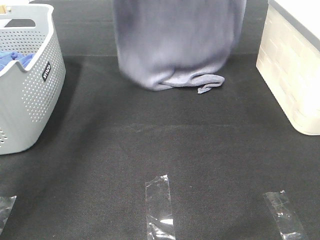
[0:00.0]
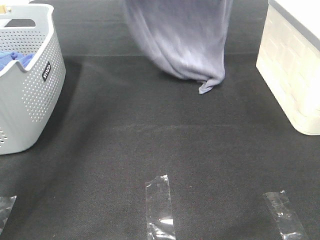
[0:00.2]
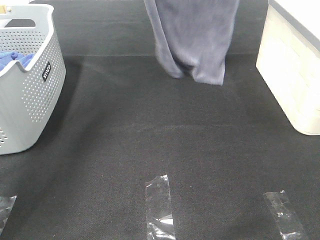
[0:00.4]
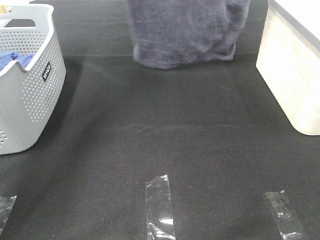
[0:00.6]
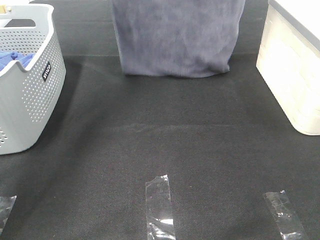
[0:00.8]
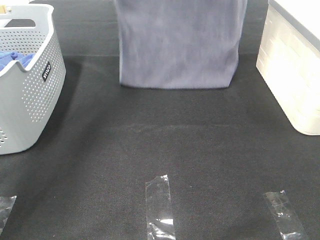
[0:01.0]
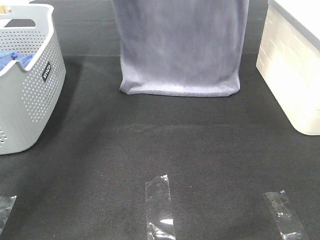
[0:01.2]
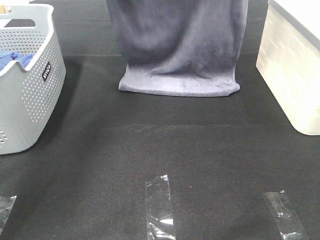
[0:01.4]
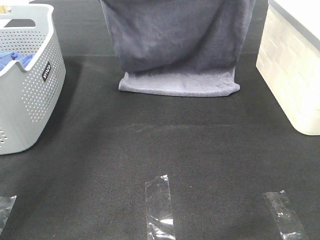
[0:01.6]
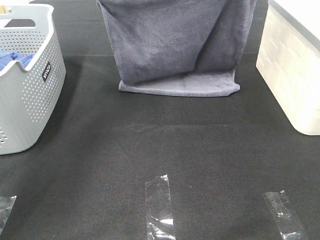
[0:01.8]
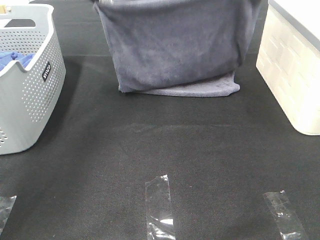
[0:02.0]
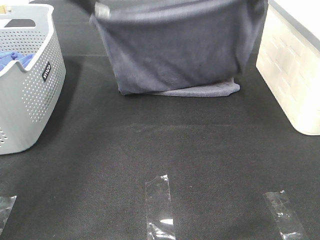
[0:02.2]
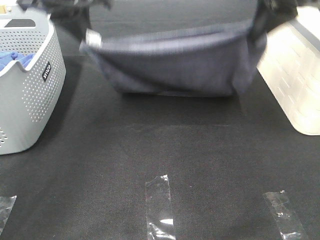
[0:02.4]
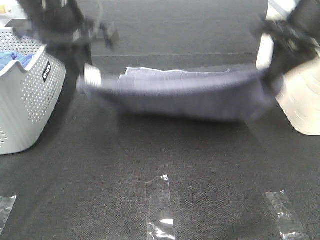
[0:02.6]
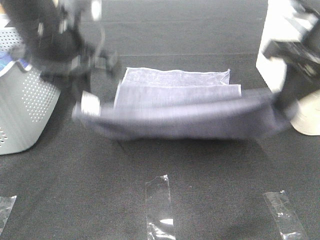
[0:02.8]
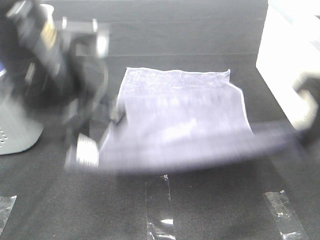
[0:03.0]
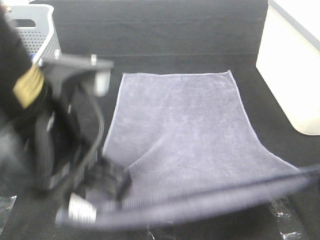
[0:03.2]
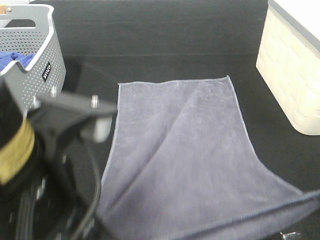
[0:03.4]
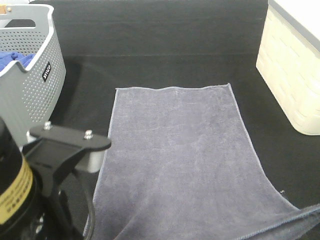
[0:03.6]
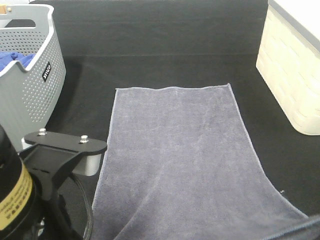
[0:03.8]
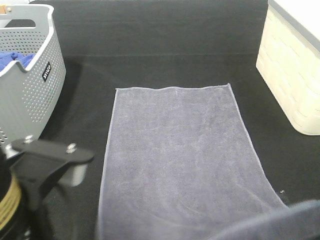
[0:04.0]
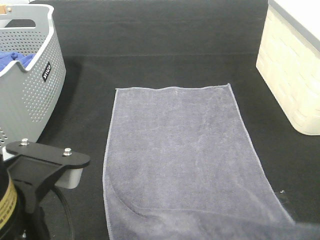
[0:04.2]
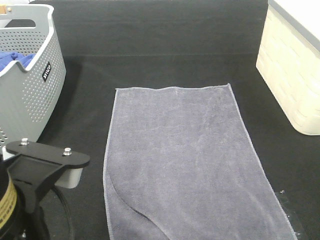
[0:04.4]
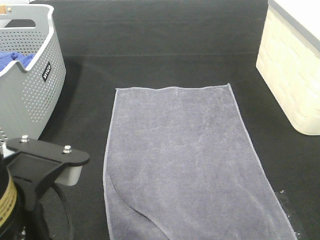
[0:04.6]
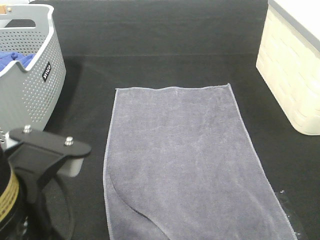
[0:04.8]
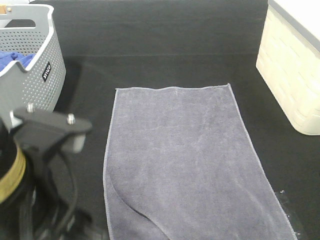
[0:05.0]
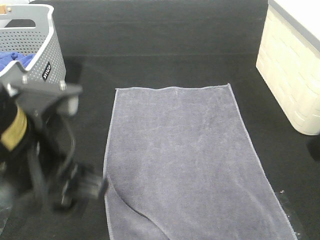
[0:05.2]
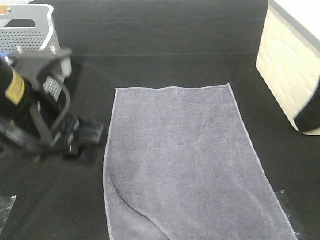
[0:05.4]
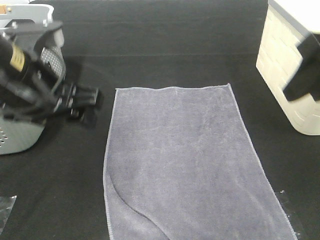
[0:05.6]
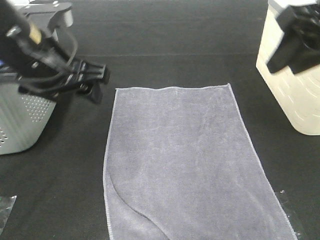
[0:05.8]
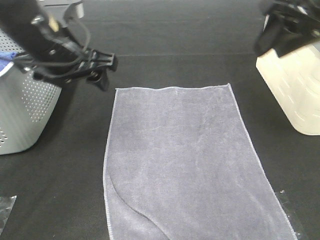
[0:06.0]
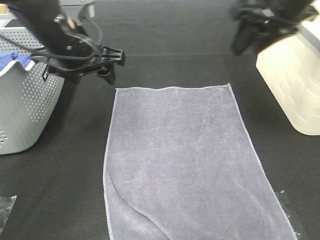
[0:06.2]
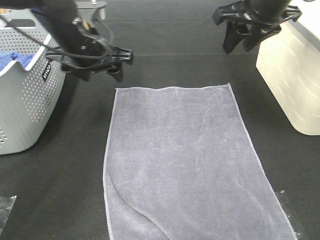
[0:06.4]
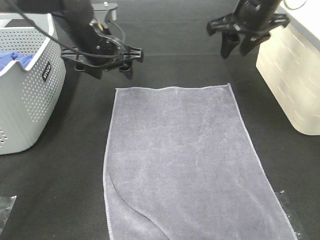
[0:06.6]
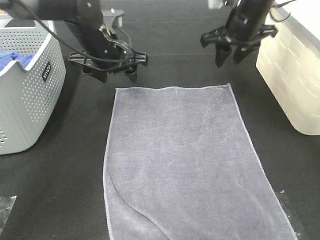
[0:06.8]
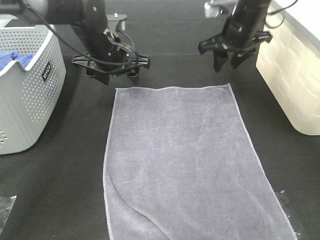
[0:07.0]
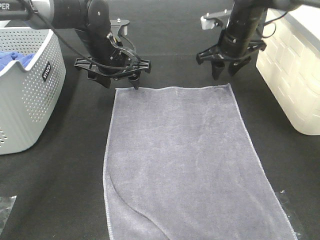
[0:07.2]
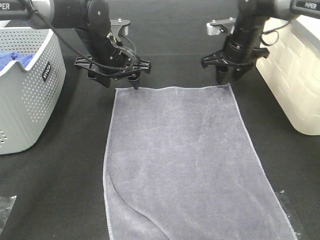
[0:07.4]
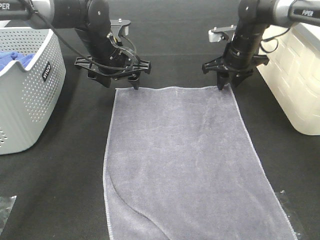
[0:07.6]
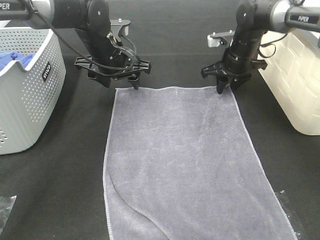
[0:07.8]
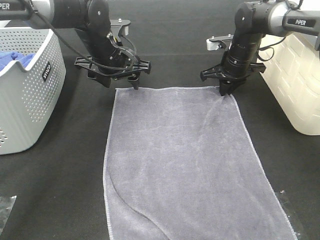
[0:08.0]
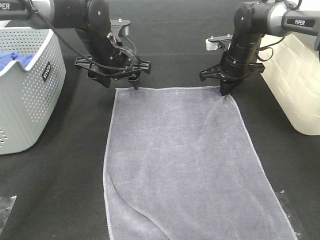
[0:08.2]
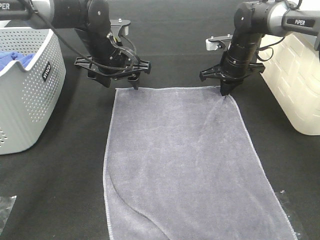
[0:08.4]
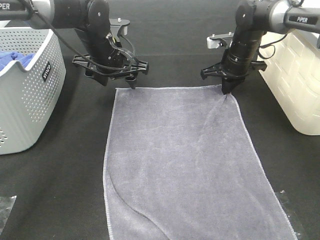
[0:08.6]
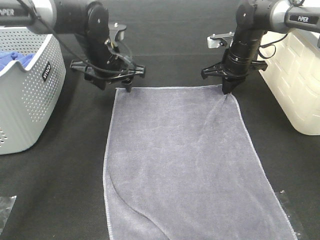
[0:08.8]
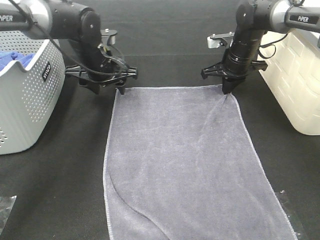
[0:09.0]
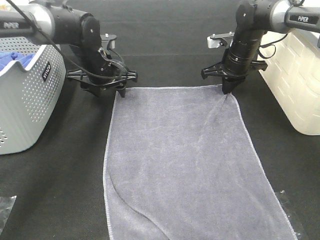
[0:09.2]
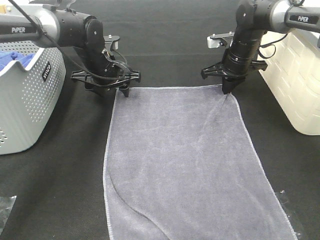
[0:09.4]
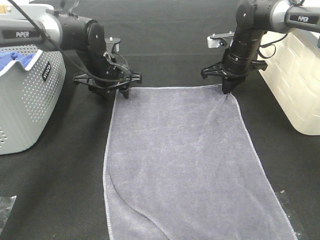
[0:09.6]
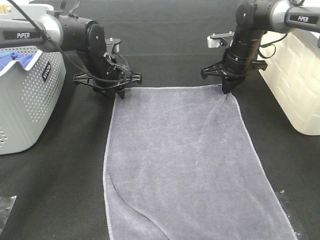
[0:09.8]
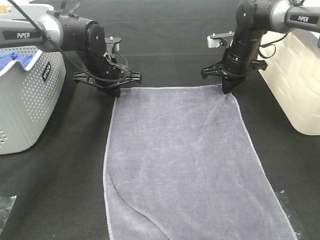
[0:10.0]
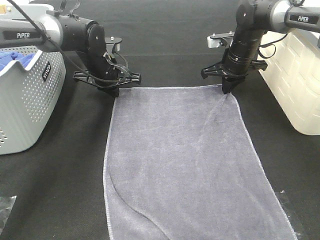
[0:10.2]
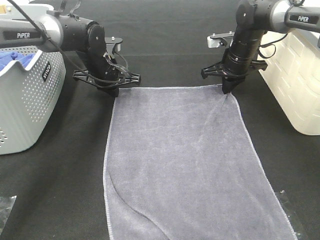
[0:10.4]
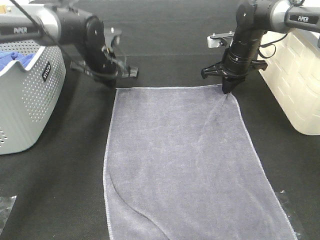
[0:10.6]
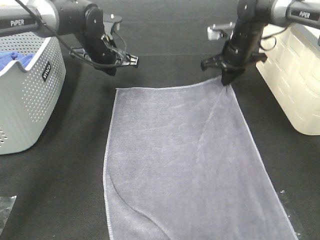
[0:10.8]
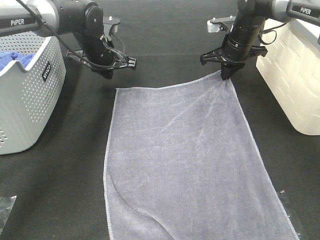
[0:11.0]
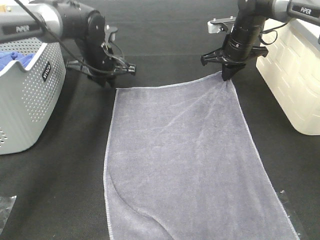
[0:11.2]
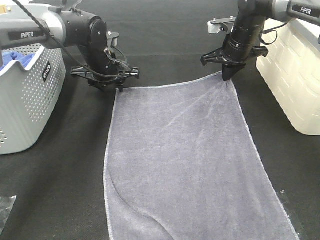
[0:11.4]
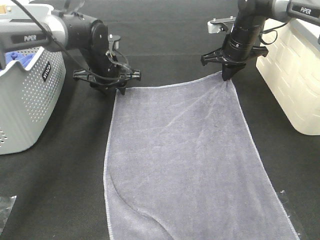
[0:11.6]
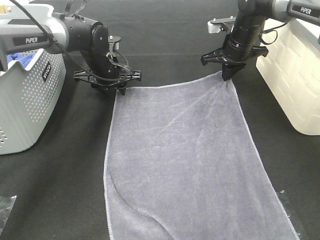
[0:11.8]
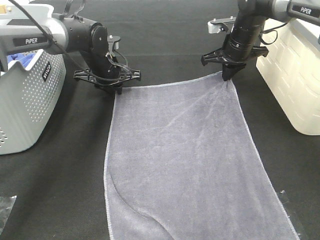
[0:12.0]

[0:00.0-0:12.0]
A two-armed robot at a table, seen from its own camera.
Task of the whole recording: Remove the towel and place it.
Step, 0:00.0 to 0:09.6: Left hand:adjust the gray towel.
Step, 0:00.0 to 0:09.6: Right hand:adjust the gray towel.
0:00.0 to 0:01.6: The left gripper moves about 10 cm upward and comes back. Meanwhile the right gripper reaches about 10 cm upward, then returns.
0:01.6 to 0:03.0: The right gripper heads backward and downward, covering approximately 25 cm; the left gripper moves backward, approximately 25 cm.
0:03.0 to 0:04.4: Both grippers move backward, approximately 10 cm. The right gripper opens its fingers, while the left gripper opens up.
0:04.4 to 0:06.0: Both grippers move forward, approximately 25 cm.
0:06.0 to 0:07.6: The right gripper is displaced downward and forward by roughly 25 cm. Meanwhile the left gripper heads forward and downward, covering about 15 cm.
0:07.6 to 0:09.0: The right gripper closes up.
0:09.0 to 0:10.4: The left gripper closes up.
0:10.4 to 0:12.0: The left gripper opens, then closes once more.

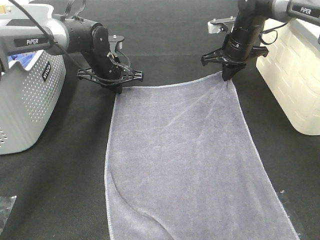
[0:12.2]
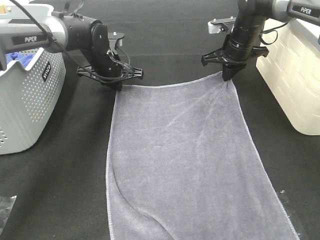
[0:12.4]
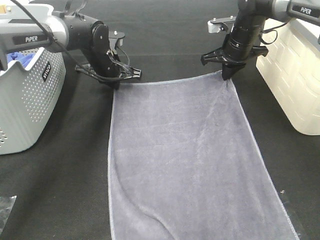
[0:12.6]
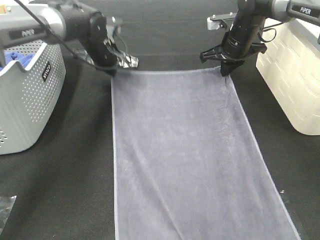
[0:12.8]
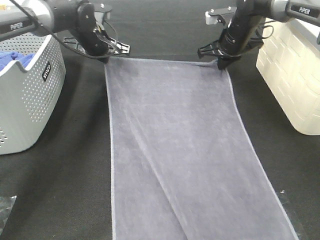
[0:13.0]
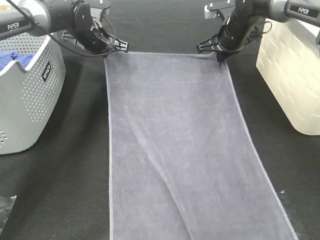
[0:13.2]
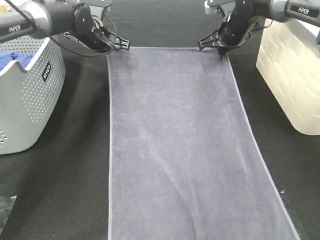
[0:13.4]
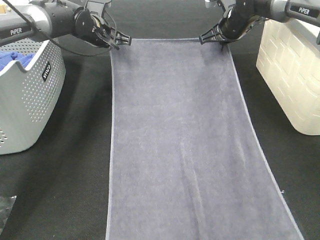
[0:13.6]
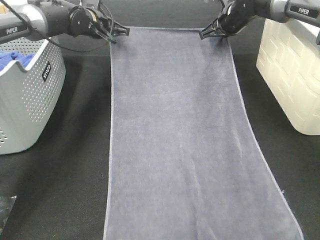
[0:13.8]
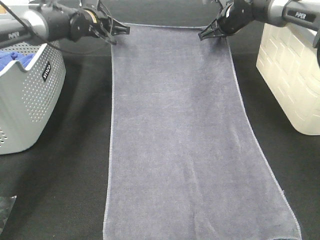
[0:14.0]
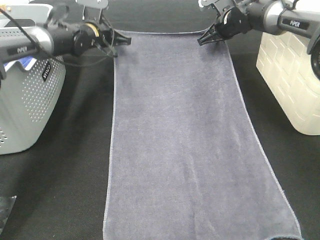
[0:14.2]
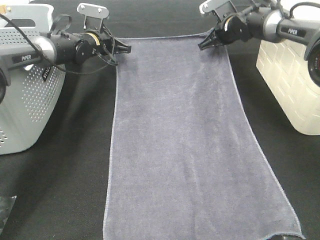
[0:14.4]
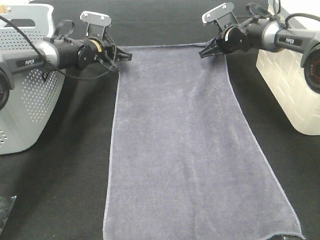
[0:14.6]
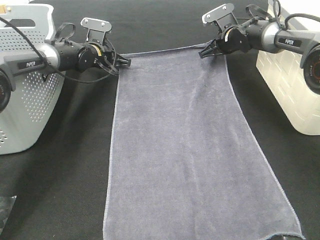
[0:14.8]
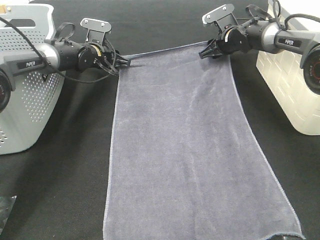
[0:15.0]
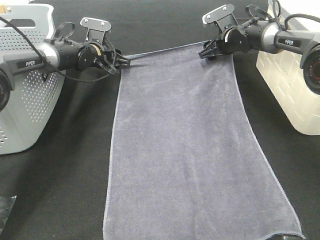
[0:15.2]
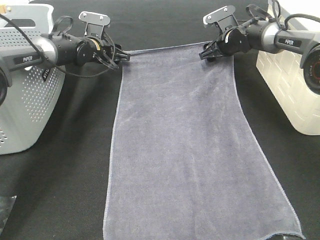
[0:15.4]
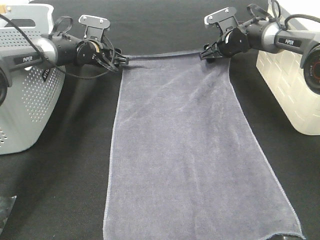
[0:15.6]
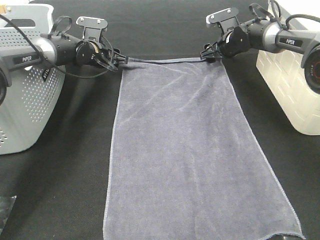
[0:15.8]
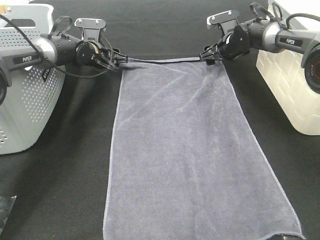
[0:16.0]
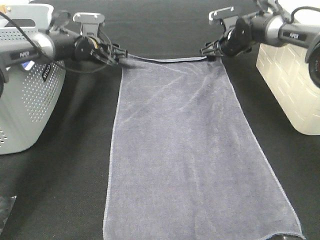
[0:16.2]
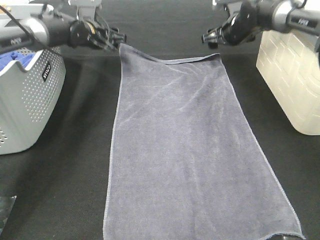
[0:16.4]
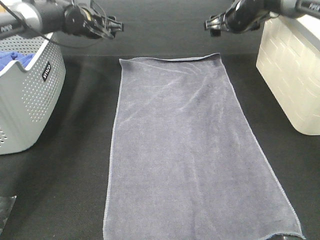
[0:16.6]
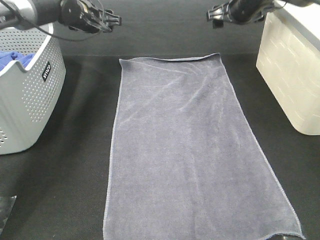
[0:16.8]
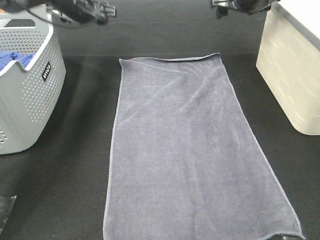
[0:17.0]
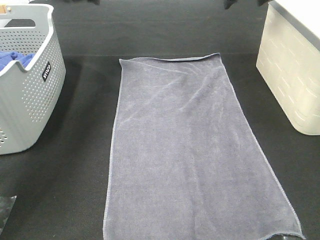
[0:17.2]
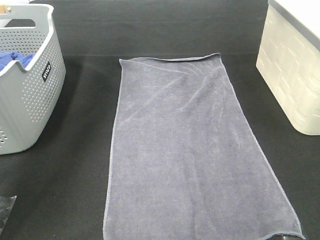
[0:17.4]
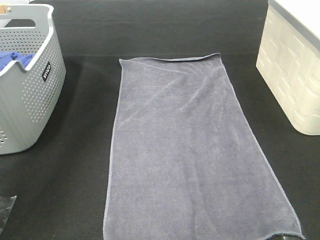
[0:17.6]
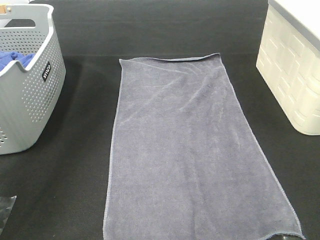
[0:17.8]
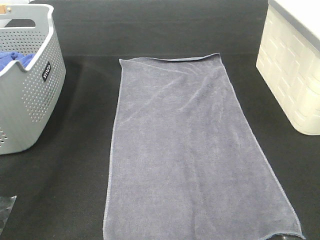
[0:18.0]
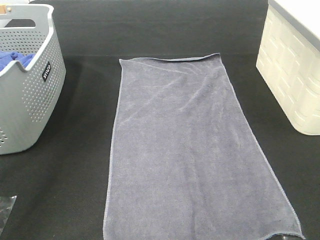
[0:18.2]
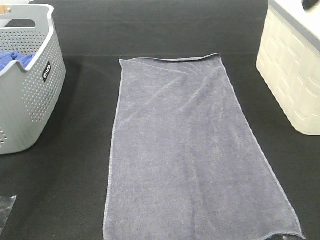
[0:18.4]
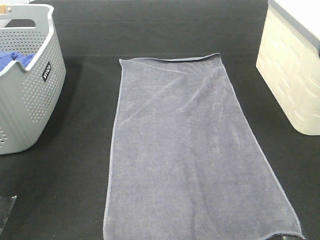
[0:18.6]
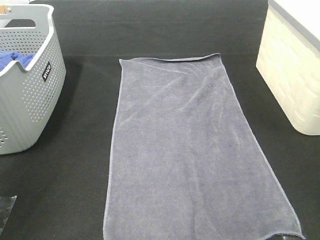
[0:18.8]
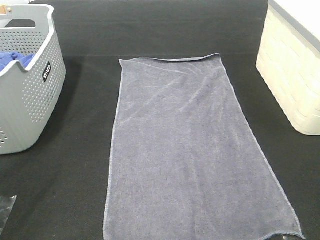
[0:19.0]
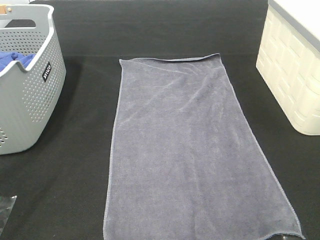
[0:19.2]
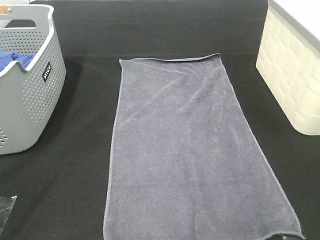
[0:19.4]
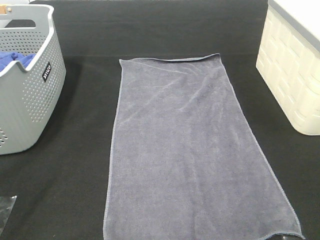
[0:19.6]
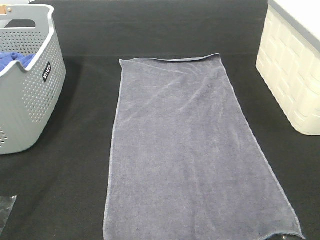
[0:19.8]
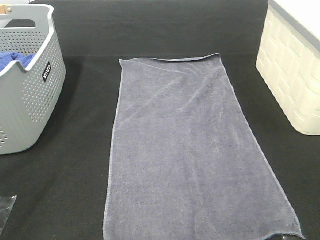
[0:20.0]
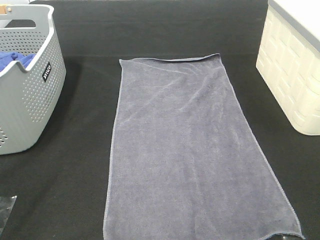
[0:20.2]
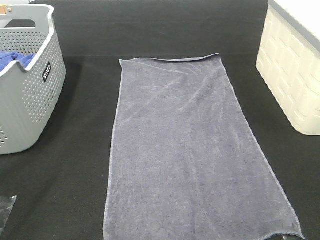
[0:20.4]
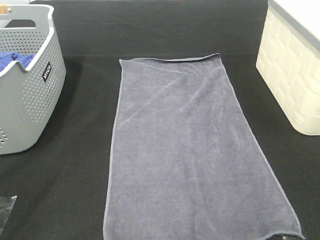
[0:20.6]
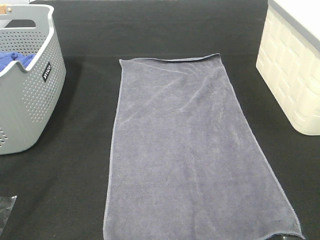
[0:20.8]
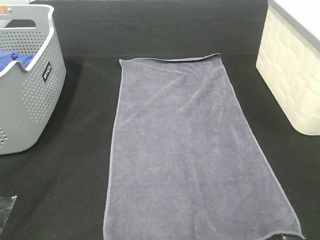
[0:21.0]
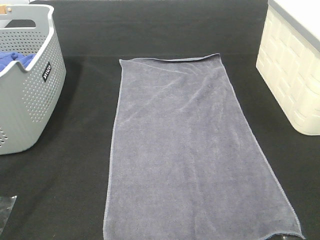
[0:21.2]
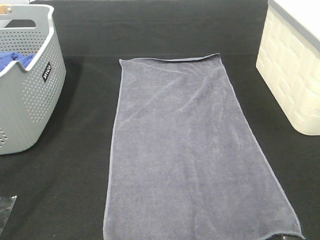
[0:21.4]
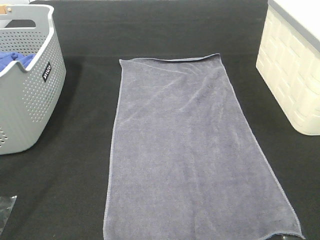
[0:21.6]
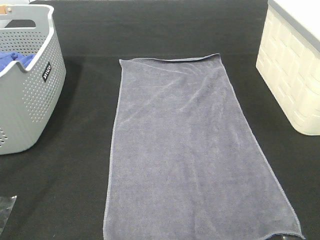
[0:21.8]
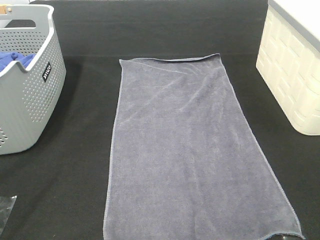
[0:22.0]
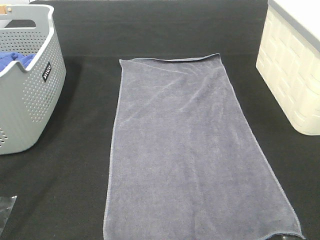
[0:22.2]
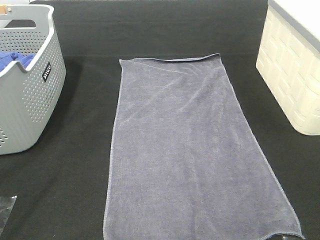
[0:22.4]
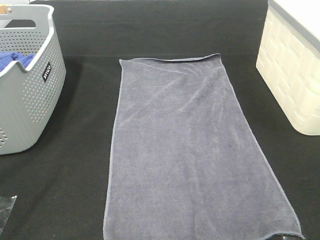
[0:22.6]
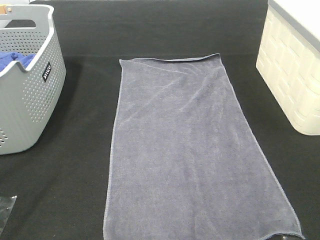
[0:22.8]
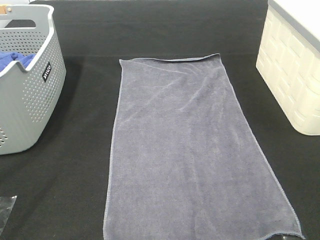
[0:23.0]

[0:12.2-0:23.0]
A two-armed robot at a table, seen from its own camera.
Task of the whole recording: Remove the towel and place it.
0:12.2 to 0:13.8: The right gripper shifts by roughly 5 cm. Meanwhile the left gripper heads upward and forward, covering some 10 cm.
0:13.8 to 0:15.2: The grippers both shift downward by some 10 cm. The right gripper opens up, while the left gripper opens.
0:15.2 to 0:16.8: Both grippers move upward, some 10 cm.
0:16.8 to 0:18.4: The grippers both shift backward and upward by approximately 35 cm.
0:18.4 to 0:20.0: Both grippers travel together backward and downward, approximately 25 cm.
